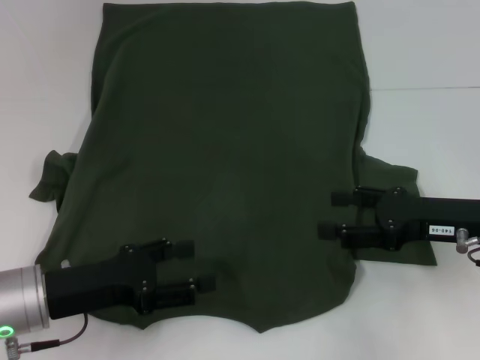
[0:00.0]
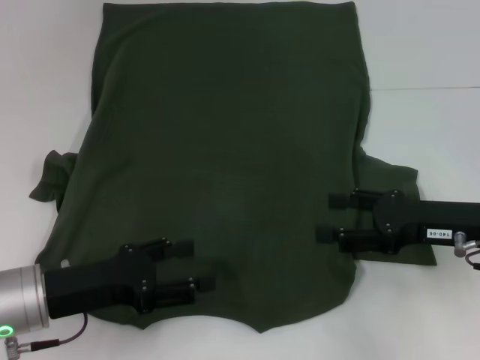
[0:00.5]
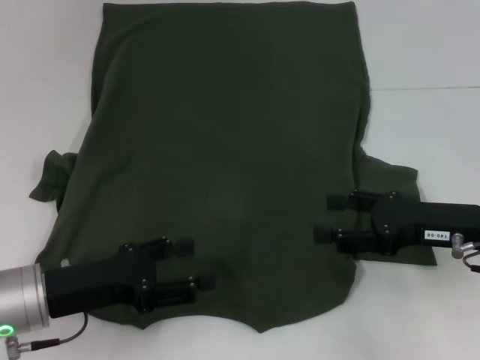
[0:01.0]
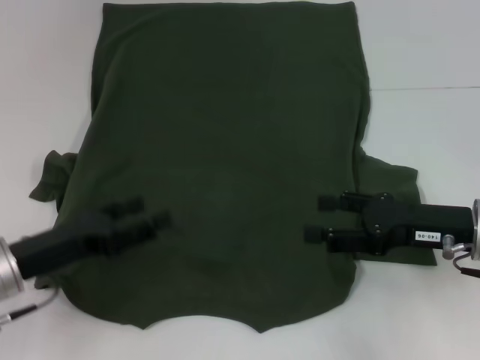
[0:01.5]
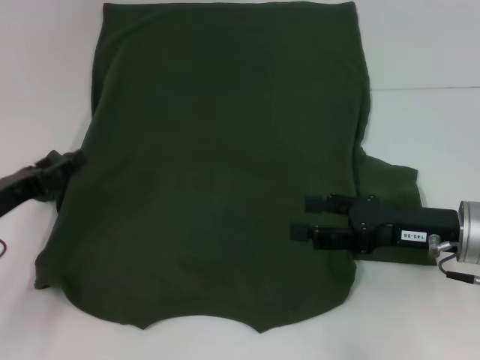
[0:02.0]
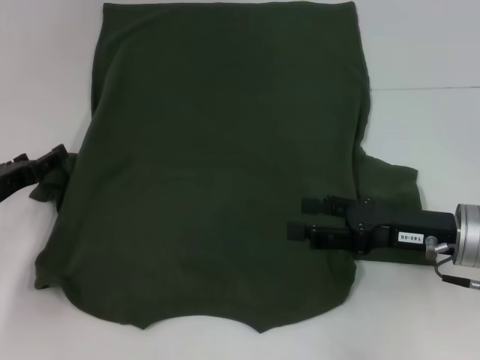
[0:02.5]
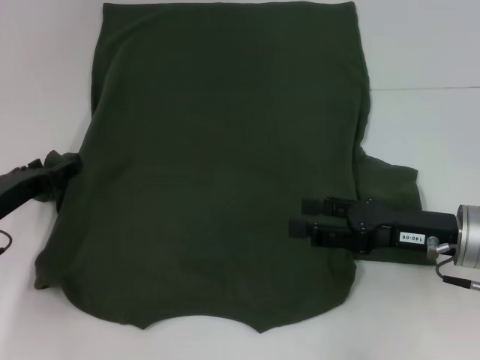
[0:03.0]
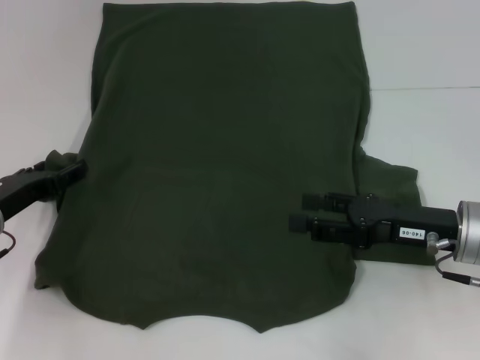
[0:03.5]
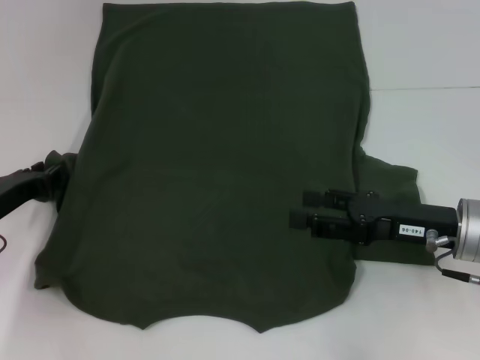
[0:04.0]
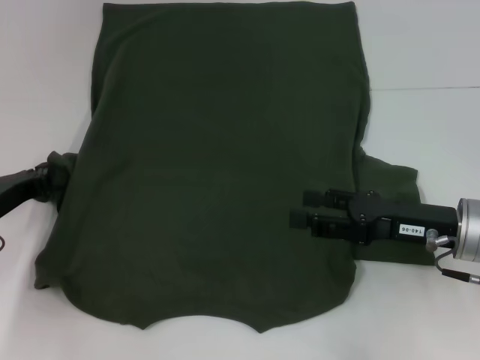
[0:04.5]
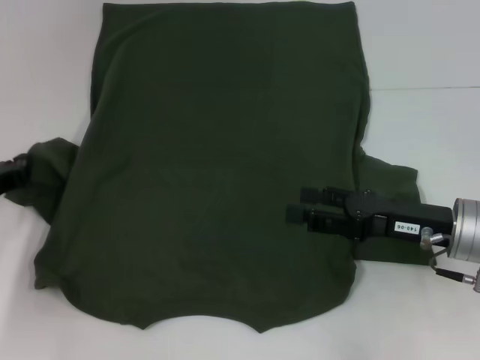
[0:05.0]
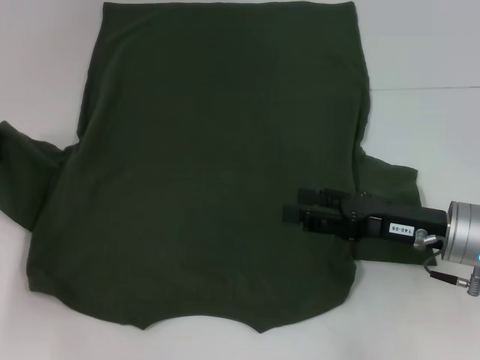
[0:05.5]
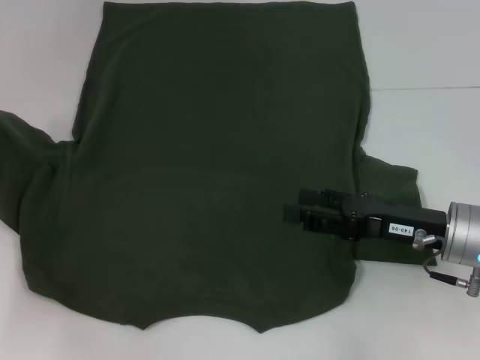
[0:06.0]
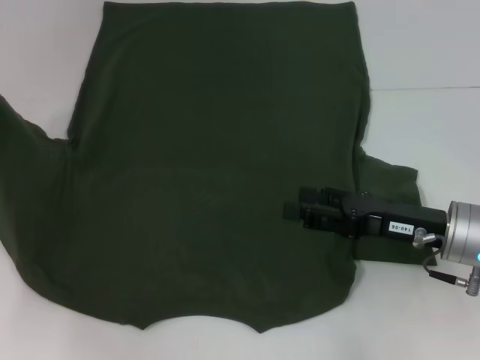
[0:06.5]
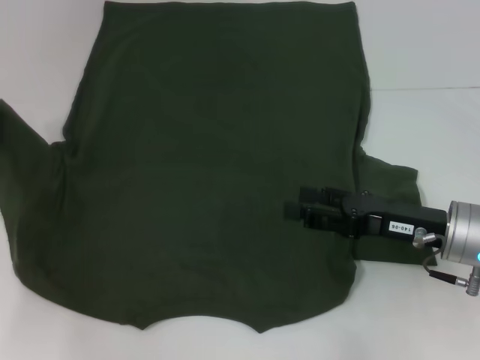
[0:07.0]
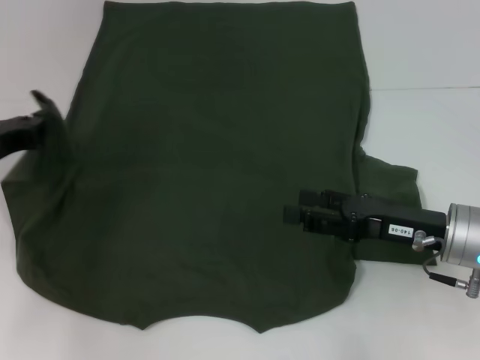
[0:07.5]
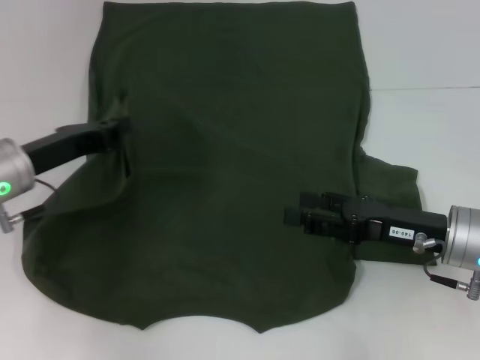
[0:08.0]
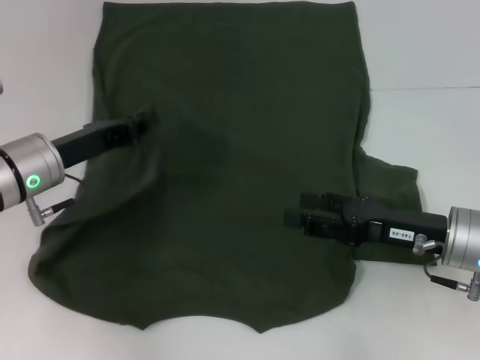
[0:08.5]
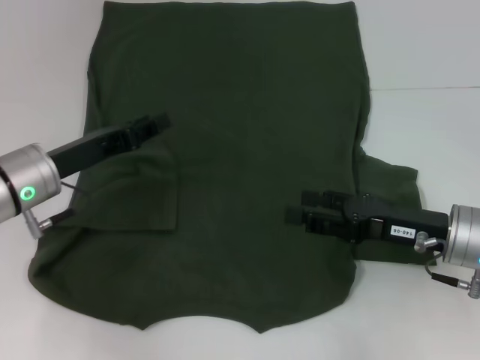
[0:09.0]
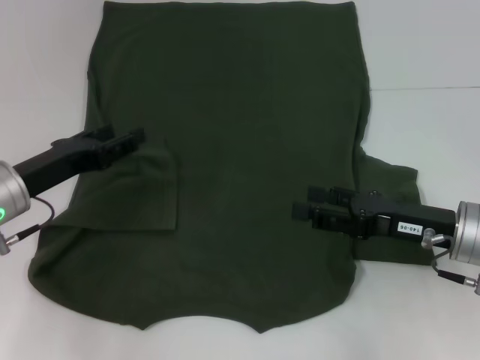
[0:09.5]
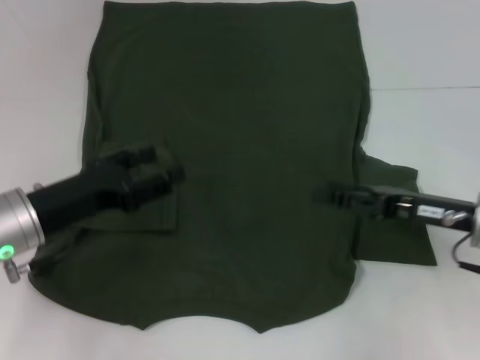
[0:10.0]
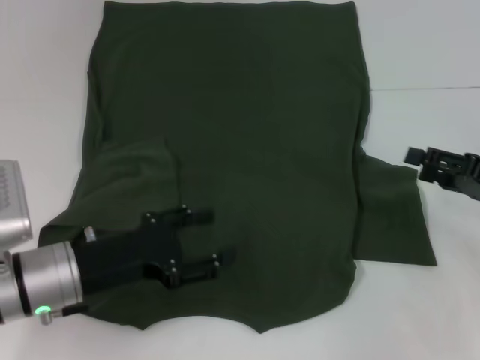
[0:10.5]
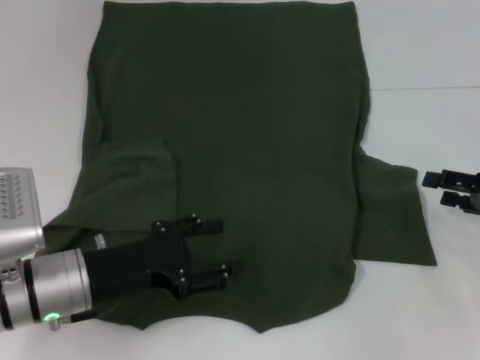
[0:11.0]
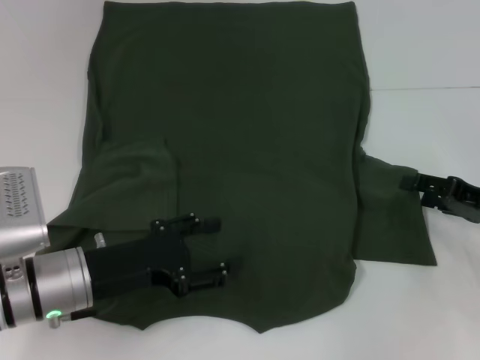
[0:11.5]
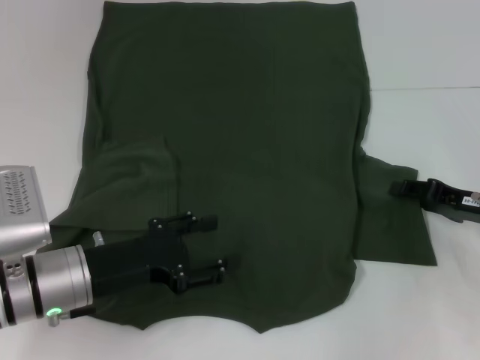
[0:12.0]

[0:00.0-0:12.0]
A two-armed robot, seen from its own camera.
Step, 0.0 to 8.5 s: Fold the bottom left sleeve with your left hand.
0.0 to 2.0 s: The left gripper shifts approximately 10 cm to the left.
2.0 to 4.0 s: The grippers stay close to where they were, moving slightly.
4.0 to 6.0 s: The left gripper changes place by about 5 cm, and closes up.
6.0 to 8.0 s: The left gripper is displaced to the right by about 10 cm.
8.0 to 10.0 s: The left gripper shifts by approximately 5 cm, and opens its fingers.
10.0 to 12.0 s: The left gripper shifts by some 5 cm. The right gripper shifts approximately 5 cm to the right.

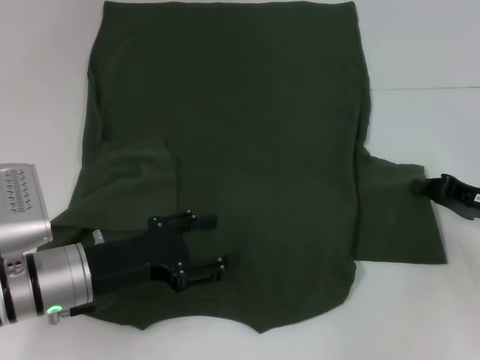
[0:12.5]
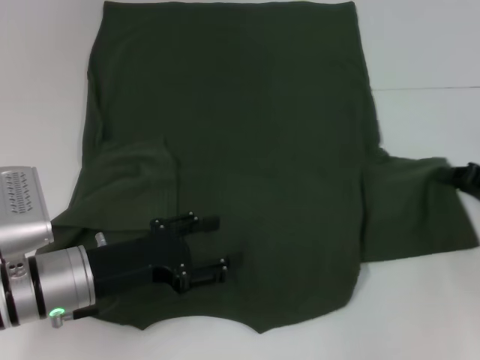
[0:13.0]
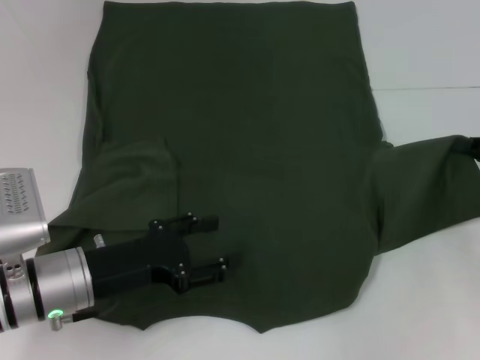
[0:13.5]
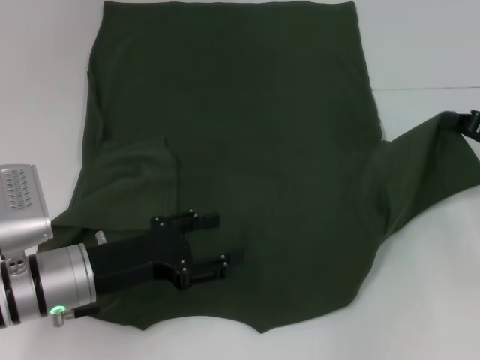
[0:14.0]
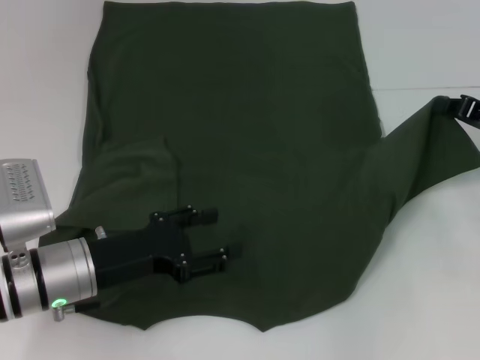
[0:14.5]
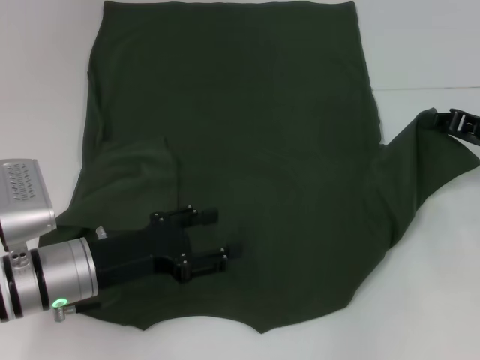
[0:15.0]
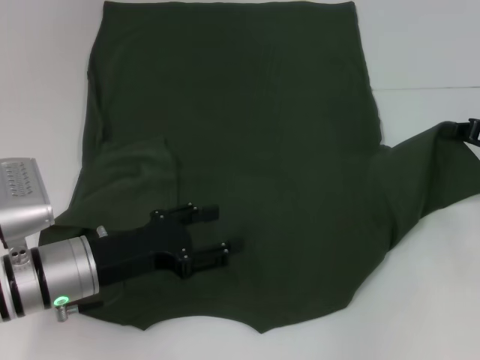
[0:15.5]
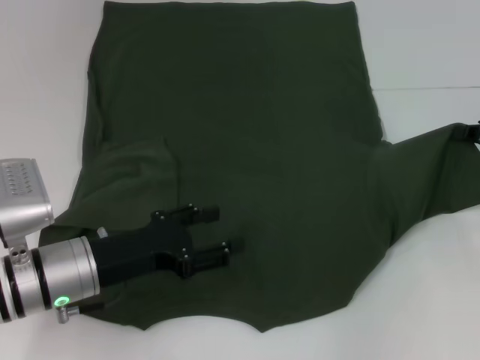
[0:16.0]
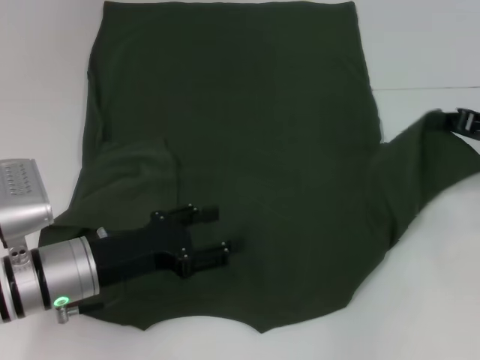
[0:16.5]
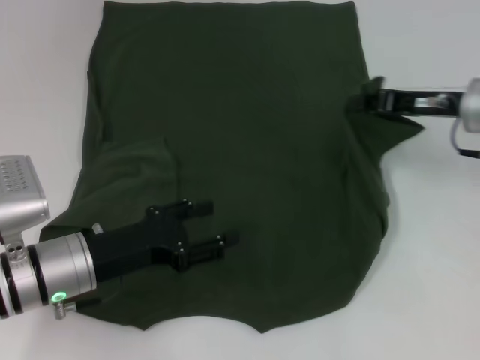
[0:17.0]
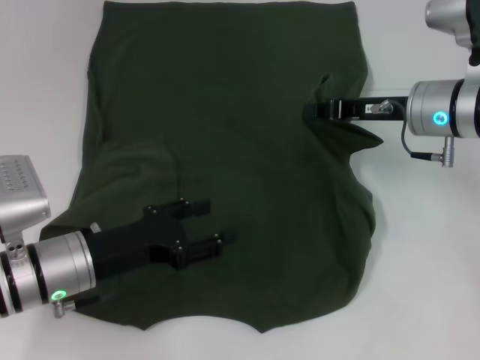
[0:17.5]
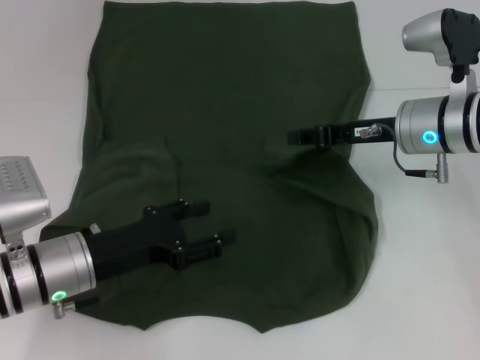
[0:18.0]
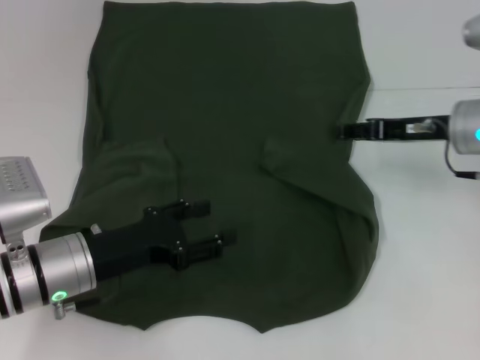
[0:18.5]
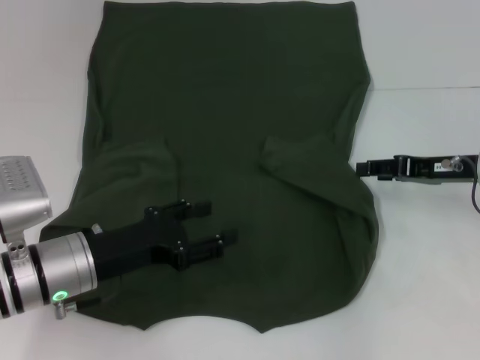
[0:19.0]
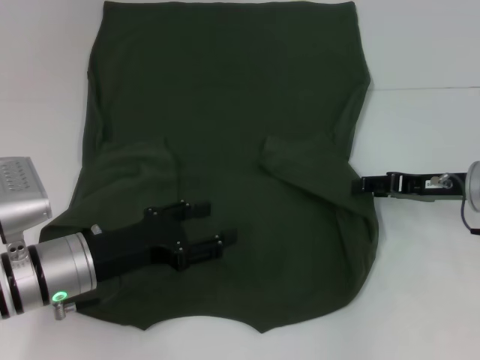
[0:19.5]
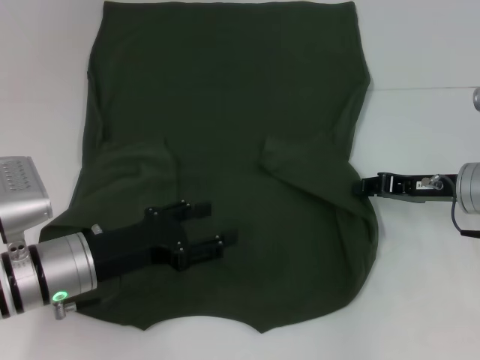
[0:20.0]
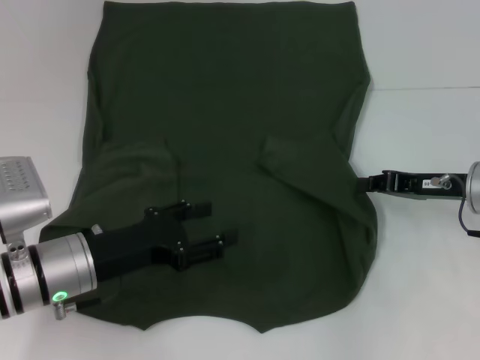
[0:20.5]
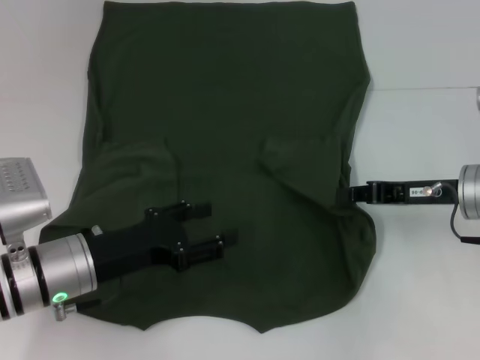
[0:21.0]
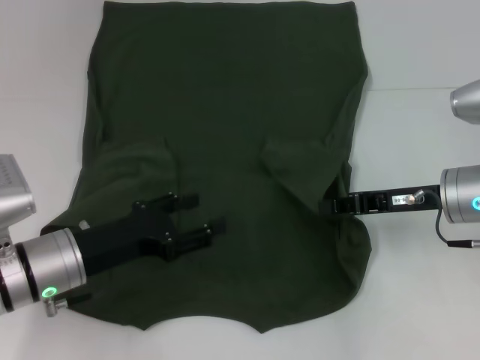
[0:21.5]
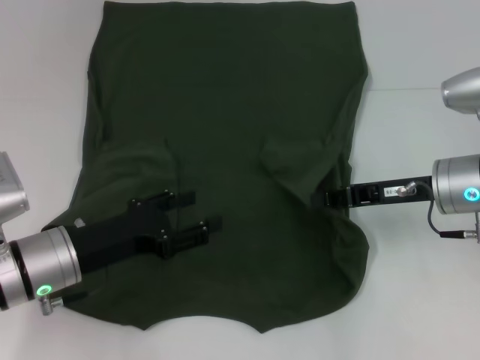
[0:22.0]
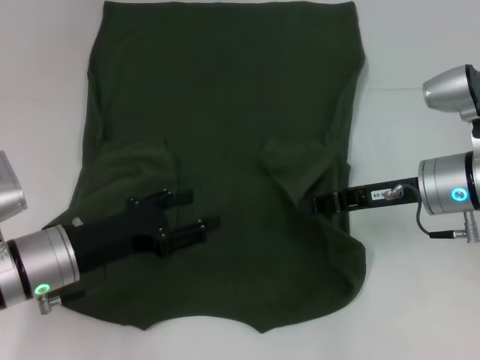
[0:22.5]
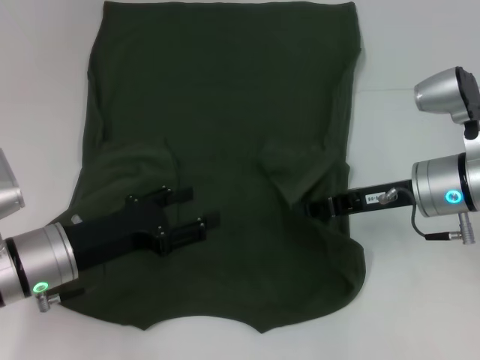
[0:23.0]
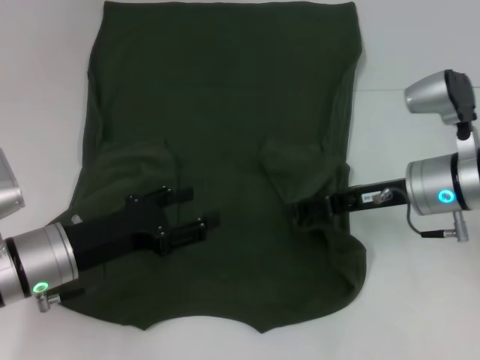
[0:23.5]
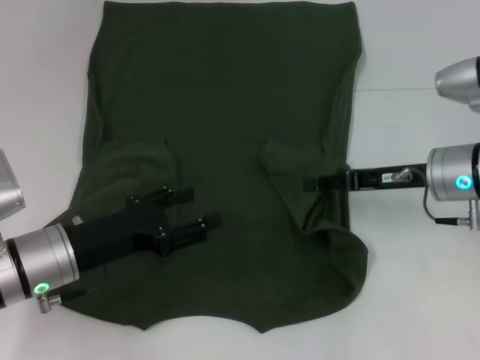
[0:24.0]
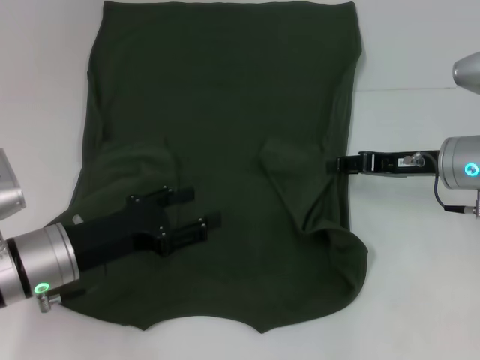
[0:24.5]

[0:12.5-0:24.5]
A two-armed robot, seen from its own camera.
12.5 to 14.5 s: The right gripper travels upward and forward by about 10 cm.
14.5 to 16.5 s: The grippers stay close to where they were, moving slightly.
16.5 to 18.5 s: The right gripper moves to the left, some 10 cm, and opens its fingers.
18.5 to 20.5 s: The right gripper moves roughly 5 cm, and closes up.
20.5 to 22.5 s: The right gripper is displaced to the left by approximately 5 cm.
22.5 to 24.5 s: The right gripper opens.

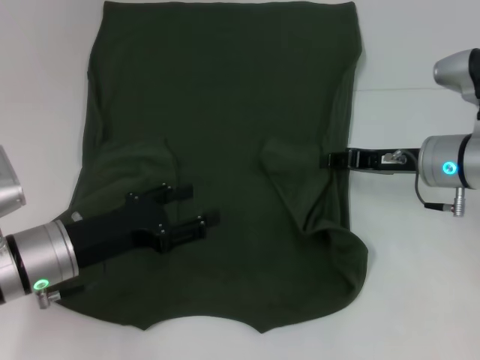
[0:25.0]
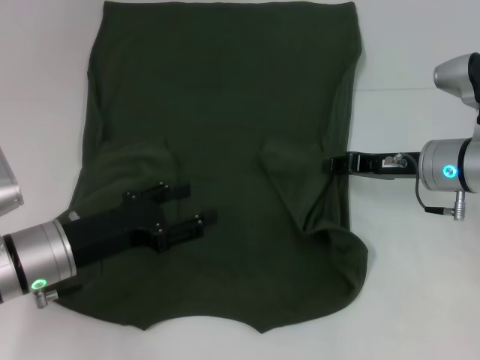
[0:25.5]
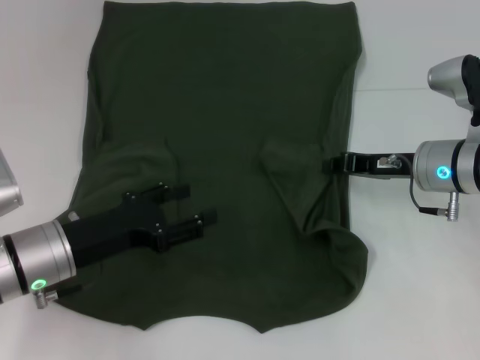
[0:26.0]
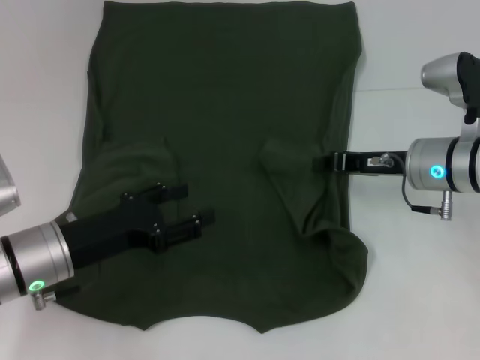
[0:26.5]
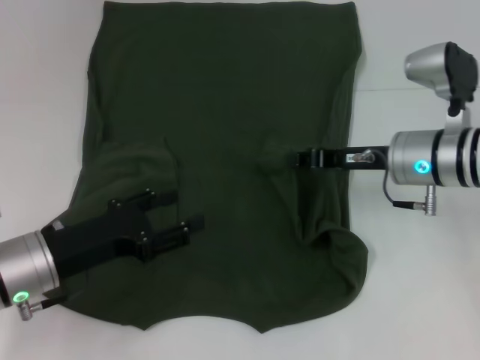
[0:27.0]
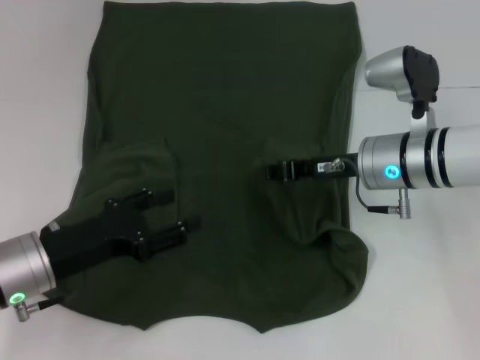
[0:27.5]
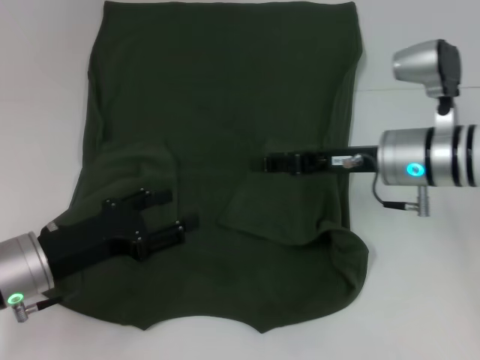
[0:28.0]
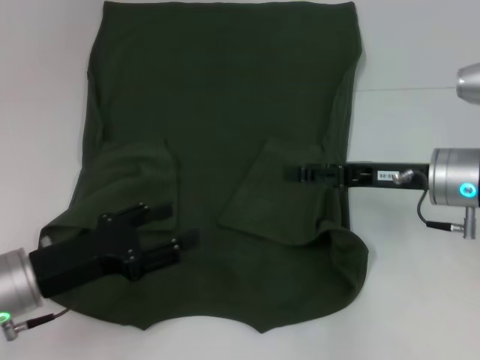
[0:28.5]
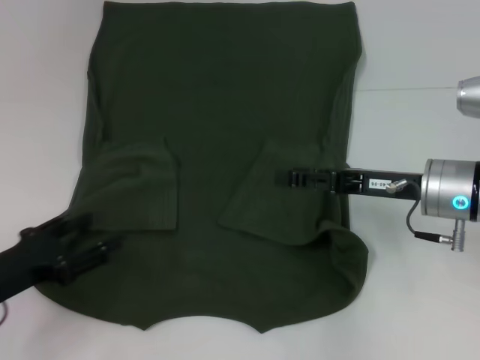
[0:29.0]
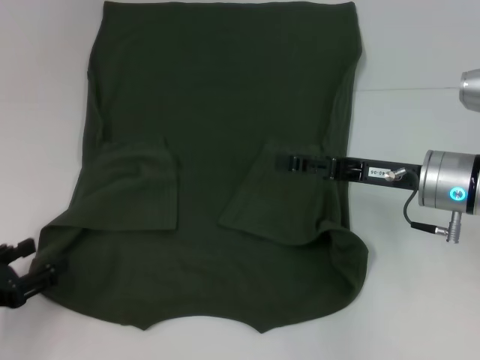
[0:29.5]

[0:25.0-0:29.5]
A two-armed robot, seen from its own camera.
Step, 25.0 to 28.5 s: Fold the bottom right sleeve with your right hand.
25.0 to 27.0 s: The right gripper closes up.
27.0 to 29.5 s: The left gripper shifts approximately 15 cm to the left and backward. The right gripper opens up.
